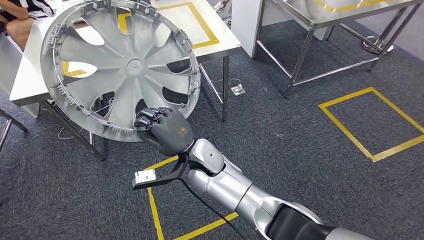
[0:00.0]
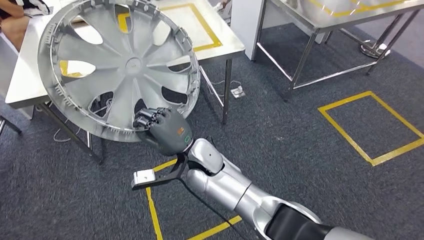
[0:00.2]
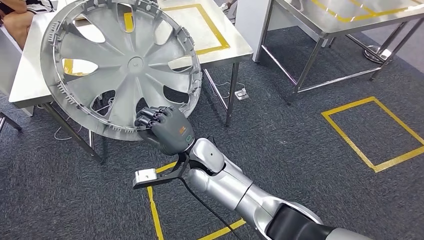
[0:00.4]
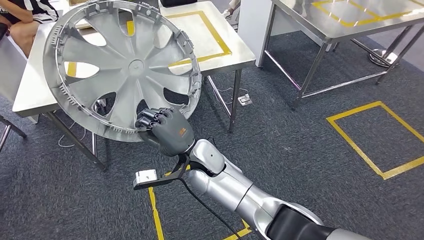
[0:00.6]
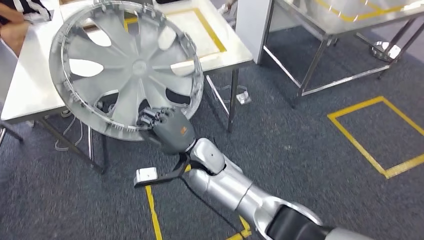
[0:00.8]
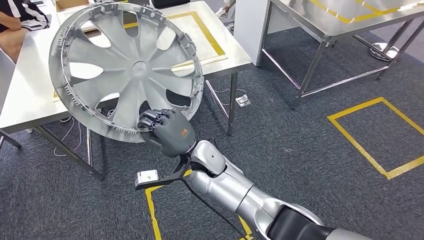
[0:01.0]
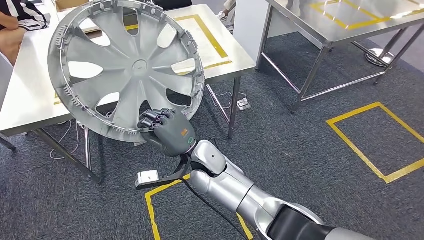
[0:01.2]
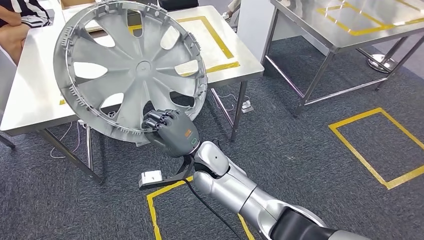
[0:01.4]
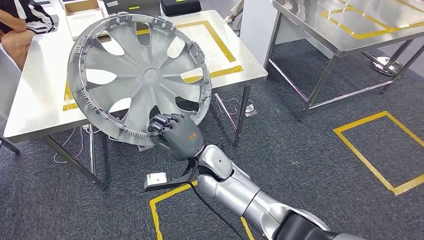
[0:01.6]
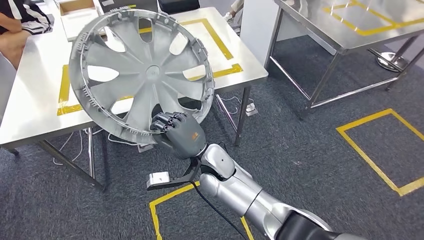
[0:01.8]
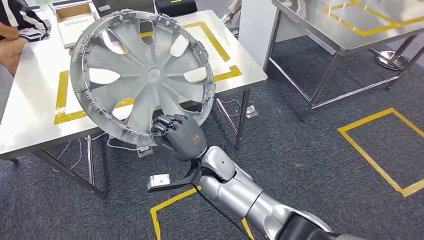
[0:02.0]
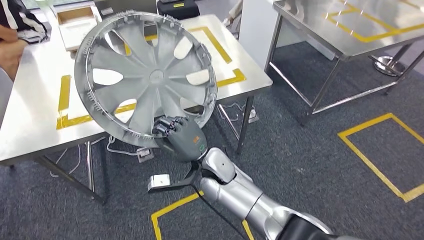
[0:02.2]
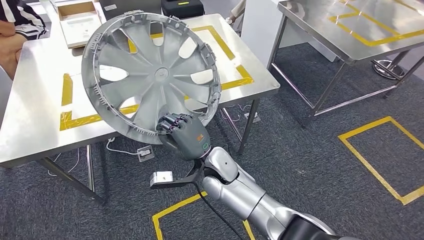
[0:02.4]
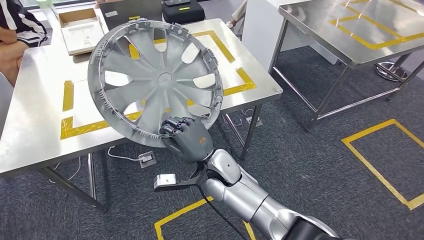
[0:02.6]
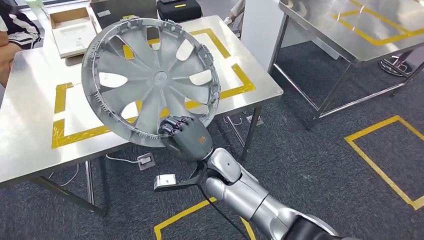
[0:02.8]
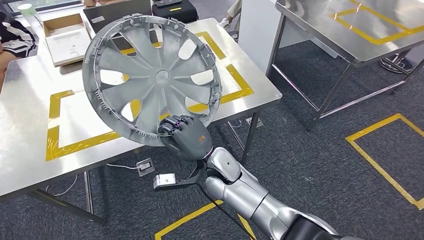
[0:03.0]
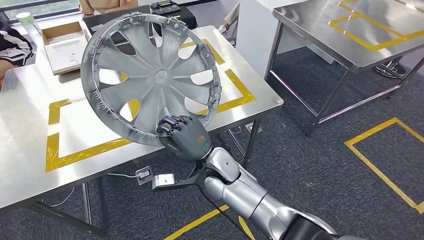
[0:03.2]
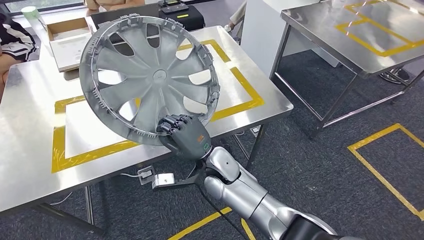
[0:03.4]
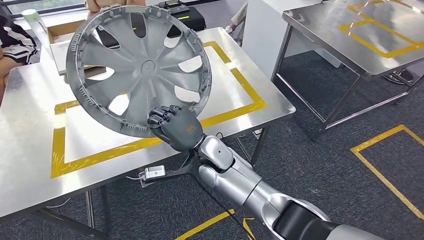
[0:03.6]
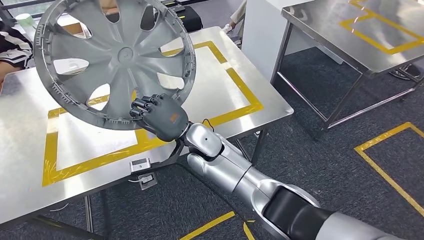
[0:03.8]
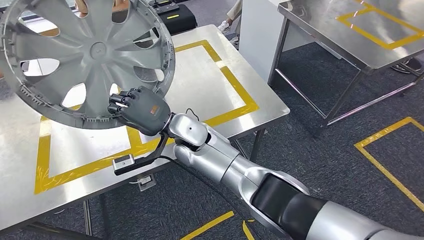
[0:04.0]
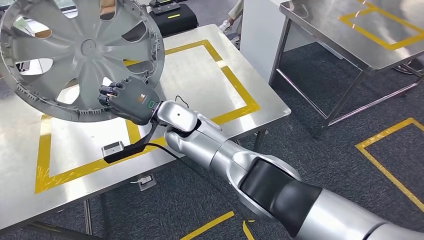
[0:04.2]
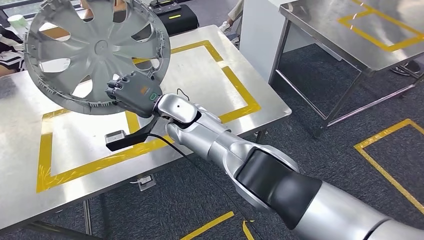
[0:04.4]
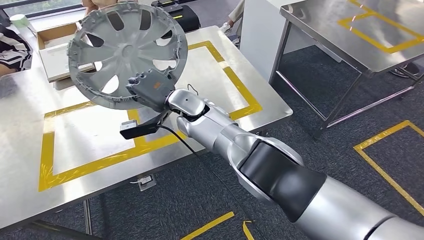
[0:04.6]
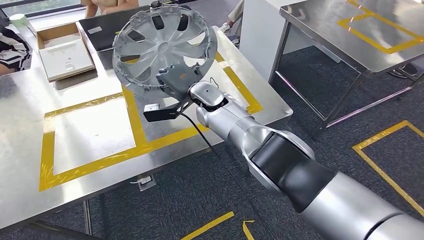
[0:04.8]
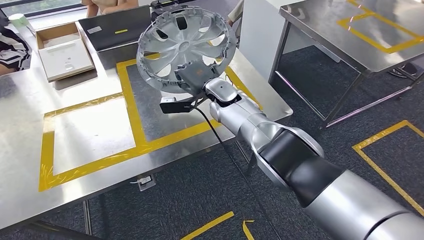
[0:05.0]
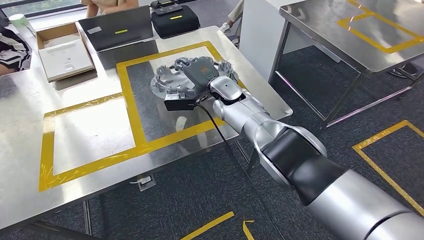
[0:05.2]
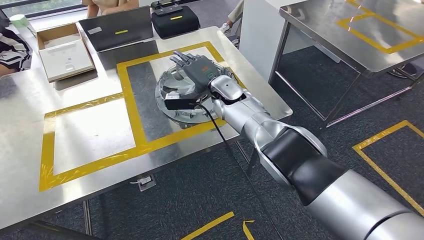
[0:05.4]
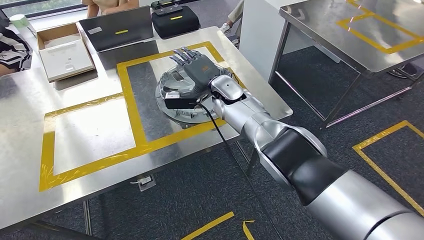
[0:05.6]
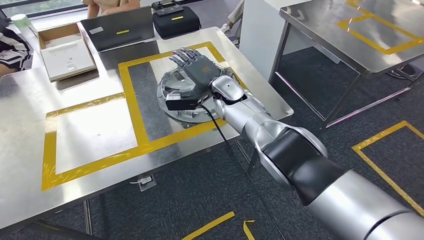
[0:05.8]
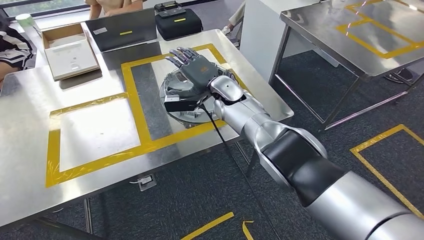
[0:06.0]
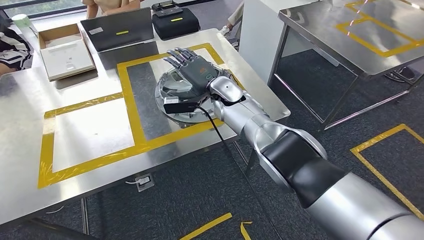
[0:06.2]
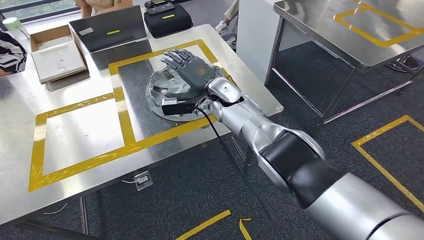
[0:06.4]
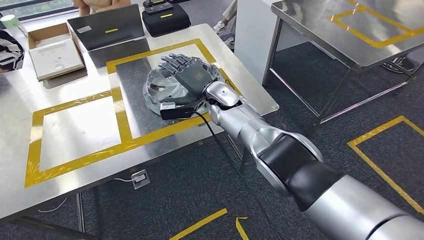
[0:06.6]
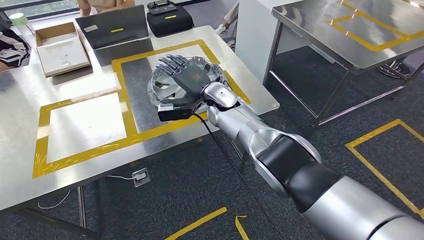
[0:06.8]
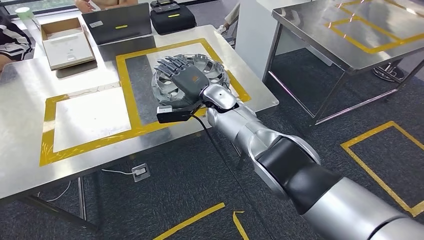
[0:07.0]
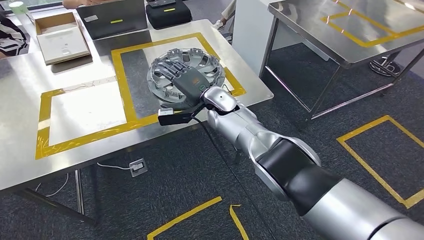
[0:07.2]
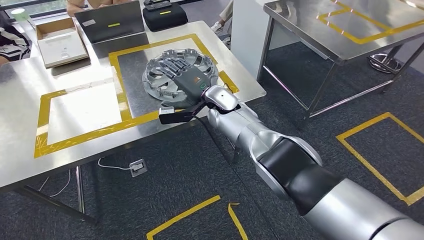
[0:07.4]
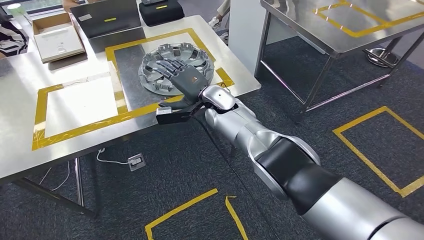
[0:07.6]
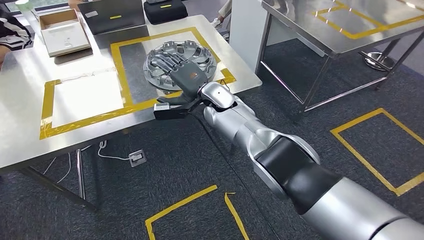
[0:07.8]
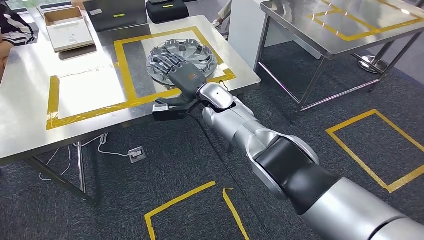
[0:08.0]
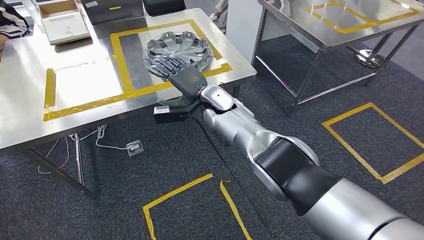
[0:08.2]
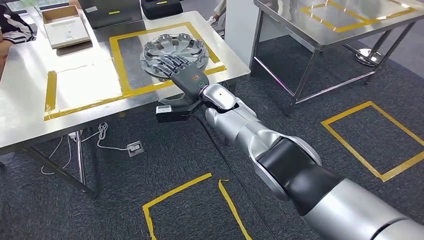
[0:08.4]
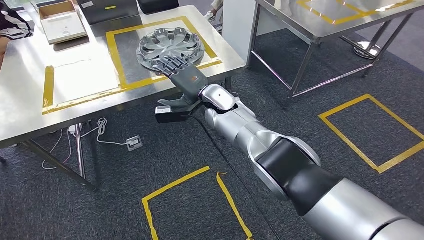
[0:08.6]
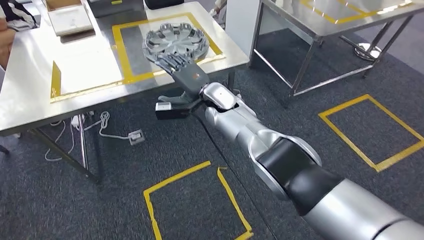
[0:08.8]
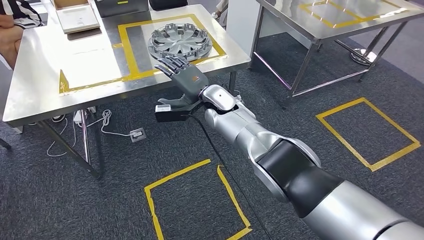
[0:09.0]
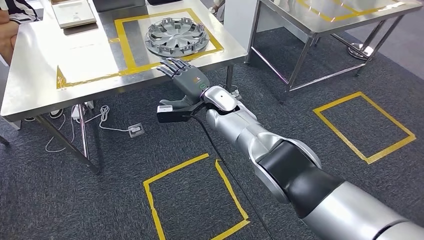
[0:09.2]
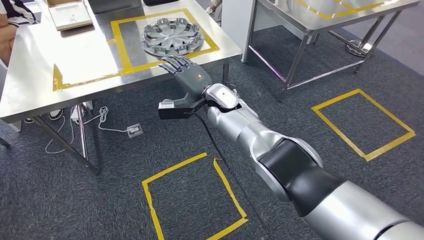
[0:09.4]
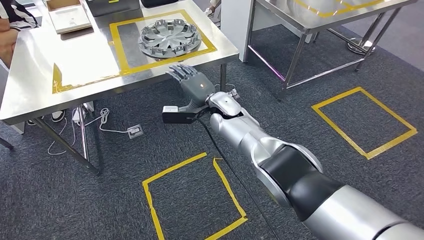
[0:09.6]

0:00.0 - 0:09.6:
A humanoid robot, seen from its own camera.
Step, 0:00.0 - 0:02.8: Bring the small component to the front of the workbench.
Step, 0:03.0 - 0:06.8: Insert the small component into the corresponding slot on the workbench.

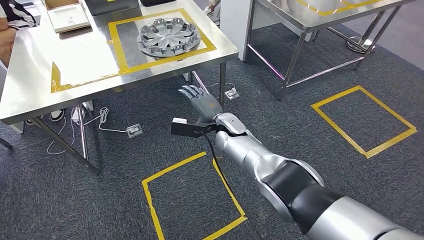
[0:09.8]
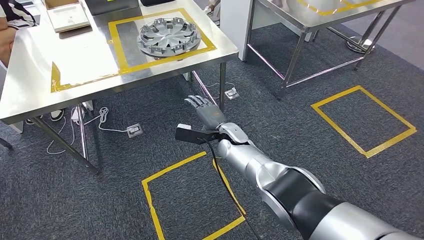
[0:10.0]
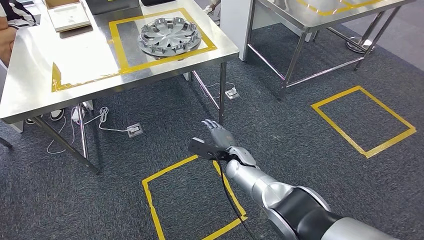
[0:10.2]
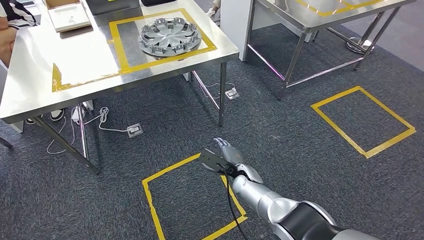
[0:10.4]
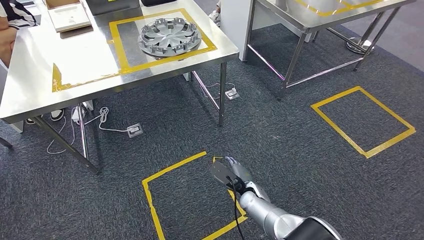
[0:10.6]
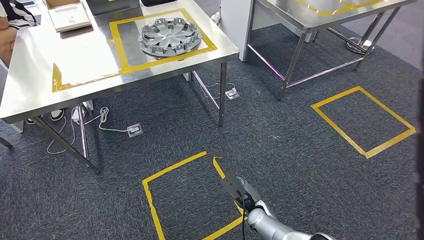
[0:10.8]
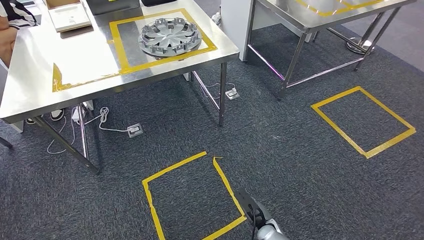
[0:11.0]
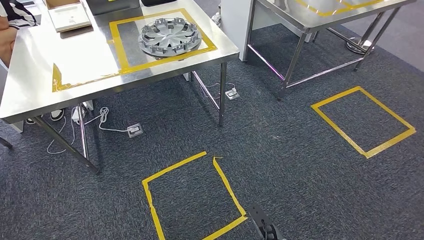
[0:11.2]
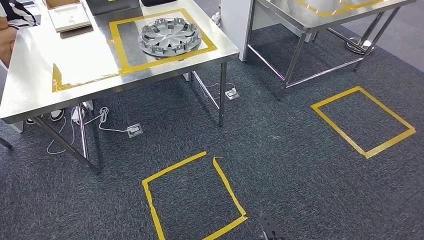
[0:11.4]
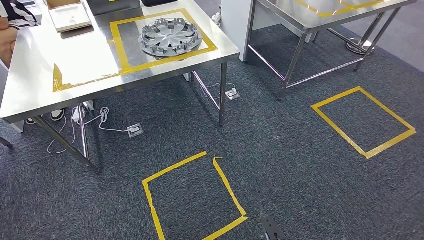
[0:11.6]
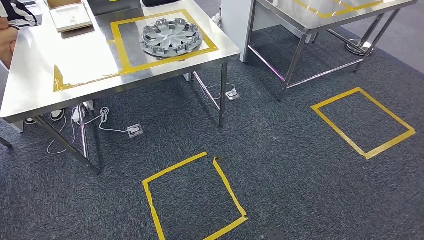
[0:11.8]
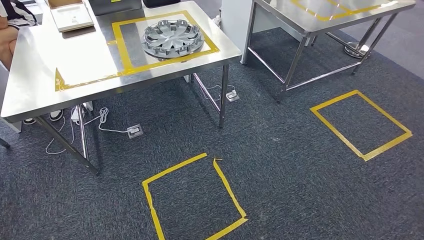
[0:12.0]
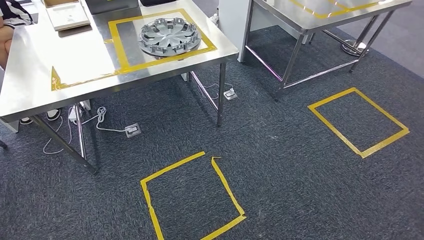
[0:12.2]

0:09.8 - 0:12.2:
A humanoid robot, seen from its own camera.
Step, 0:09.8 - 0:12.2: Move to the initial position of the workbench.
0:09.8 - 0:11.0: The right hand travels backward and downward by some 35 cm.
0:11.0 - 0:12.2: The left hand goes about 15 cm forward, while the right hand moves backward, approximately 25 cm.

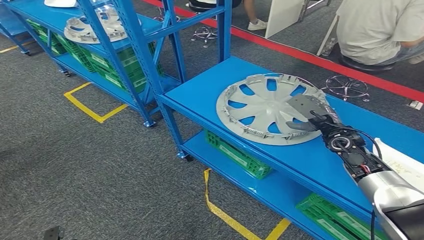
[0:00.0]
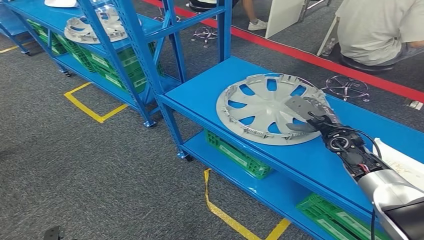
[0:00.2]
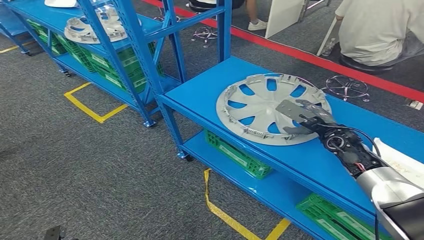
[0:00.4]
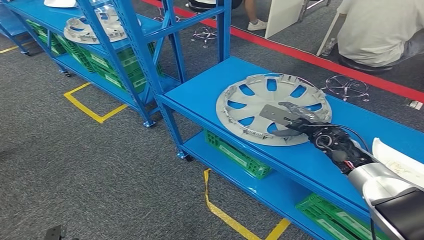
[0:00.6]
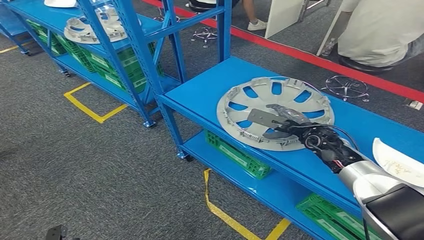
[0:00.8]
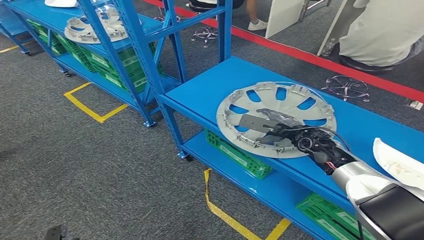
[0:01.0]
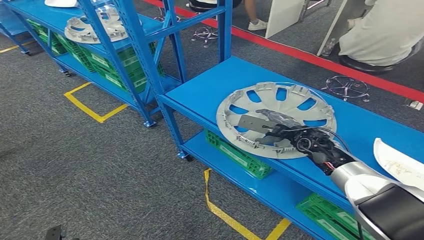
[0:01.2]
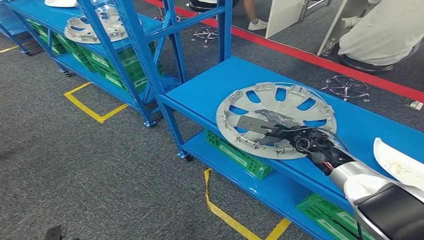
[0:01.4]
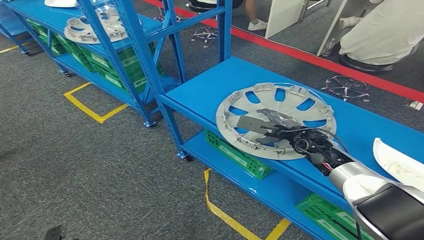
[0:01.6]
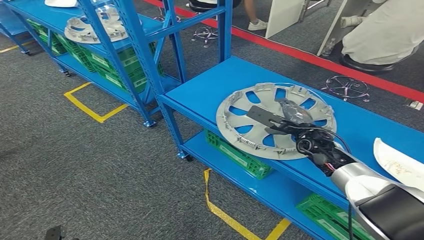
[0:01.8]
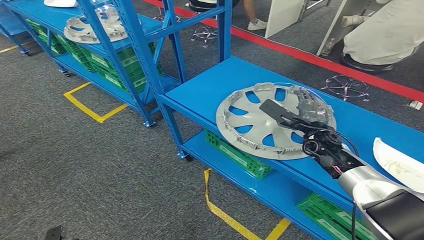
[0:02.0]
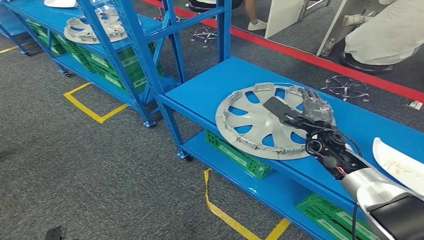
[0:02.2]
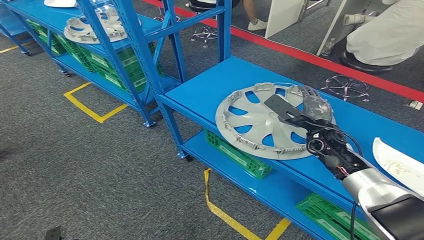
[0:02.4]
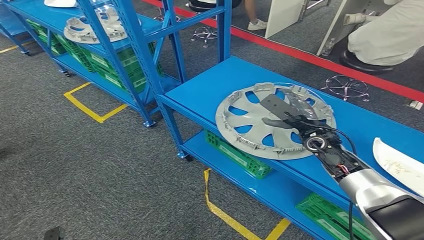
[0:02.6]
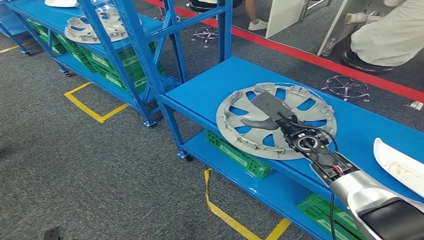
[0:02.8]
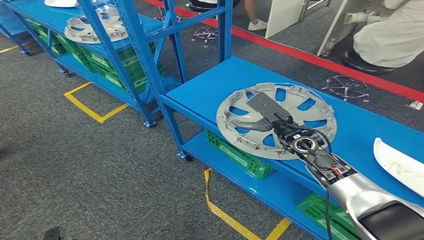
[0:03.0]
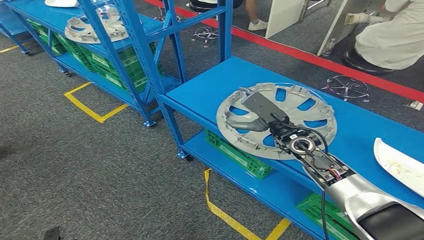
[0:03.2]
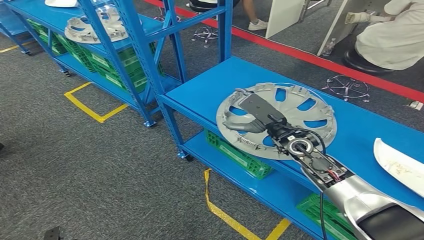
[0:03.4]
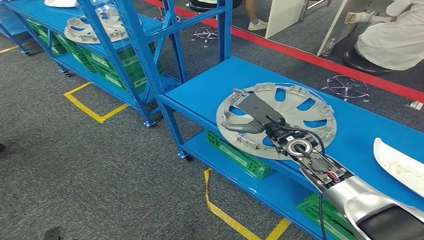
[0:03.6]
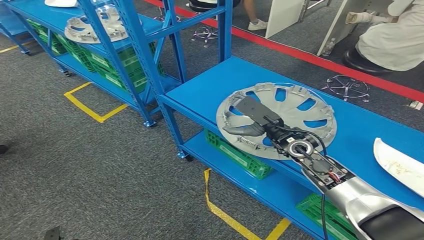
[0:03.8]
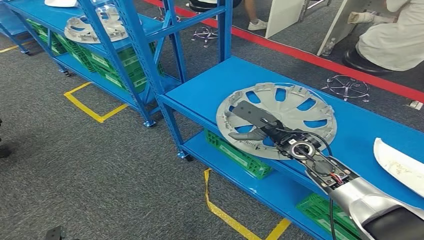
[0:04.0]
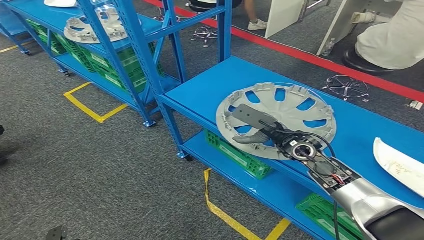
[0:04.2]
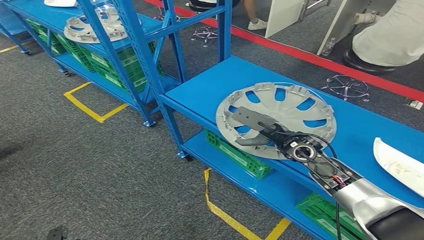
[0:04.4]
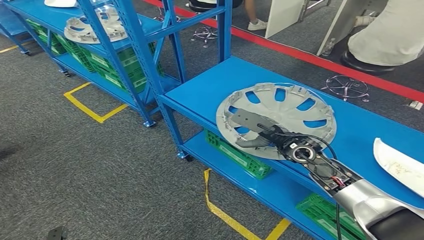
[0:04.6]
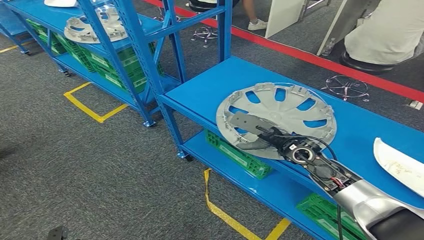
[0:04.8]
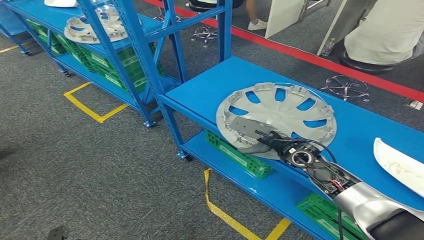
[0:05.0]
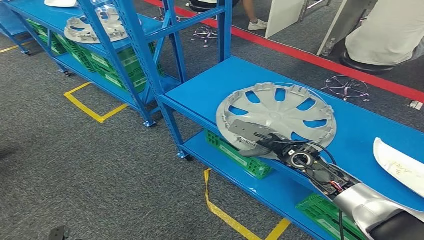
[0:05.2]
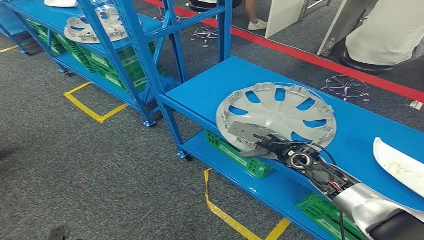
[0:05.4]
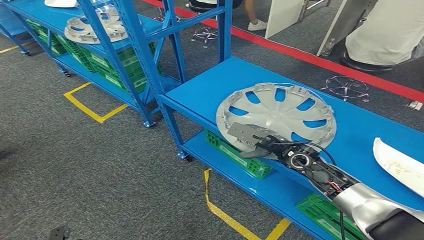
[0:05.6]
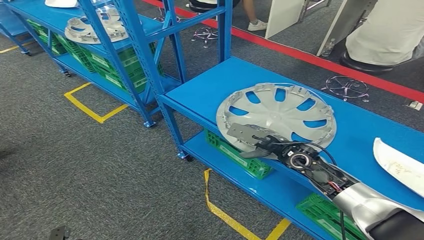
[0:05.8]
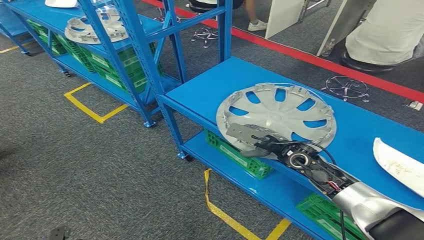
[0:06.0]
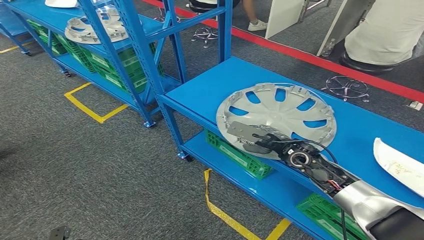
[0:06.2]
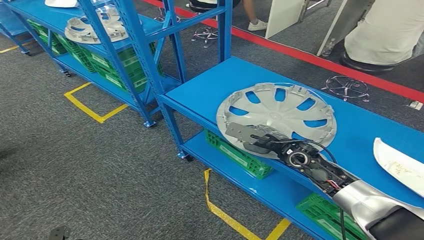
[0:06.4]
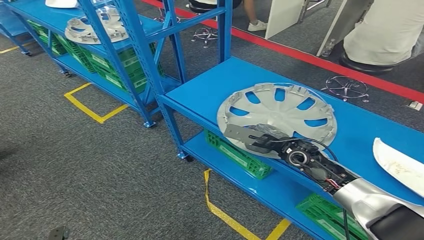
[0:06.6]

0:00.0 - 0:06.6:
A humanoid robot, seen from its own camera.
0:00.0 - 0:01.6: The right hand shifts some 10 cm to the left.
0:01.6 - 0:03.2: The right hand ends up roughly 5 cm from where it was.
0:05.0 - 0:06.6: There are only small adjustments of the hands.
